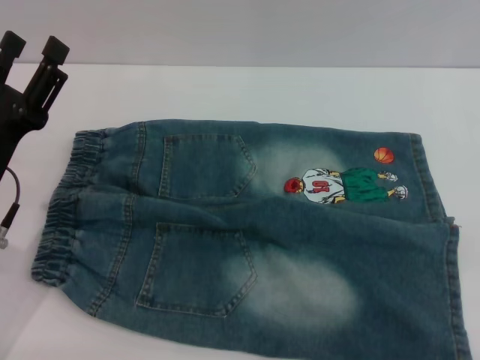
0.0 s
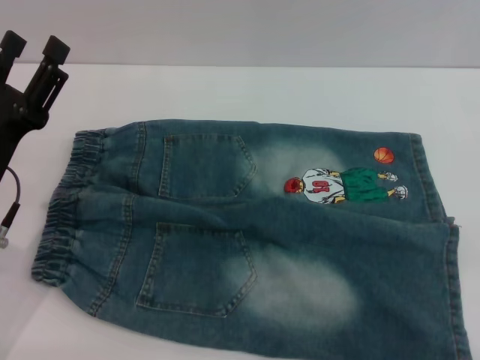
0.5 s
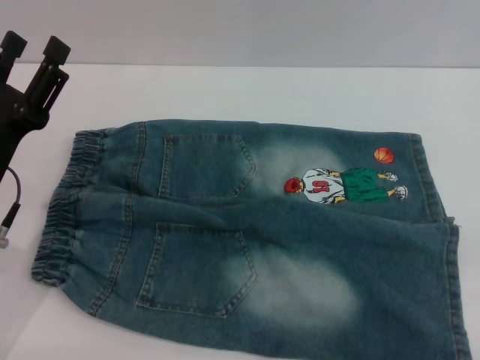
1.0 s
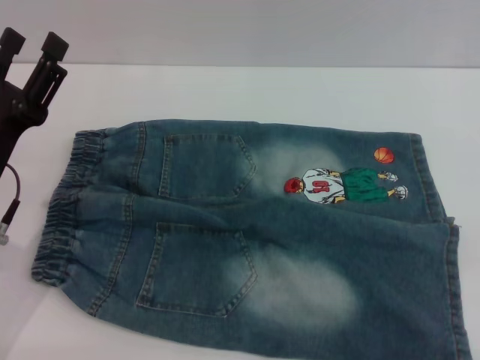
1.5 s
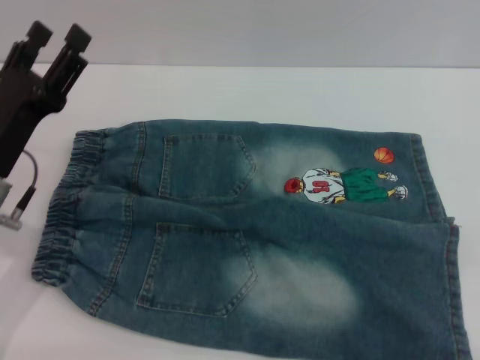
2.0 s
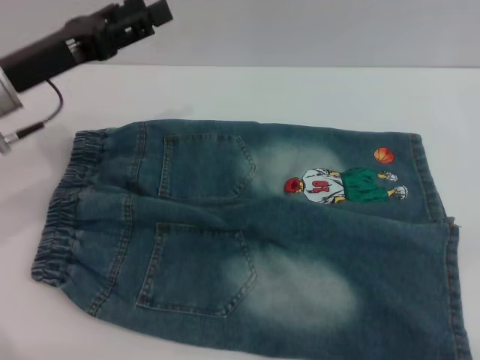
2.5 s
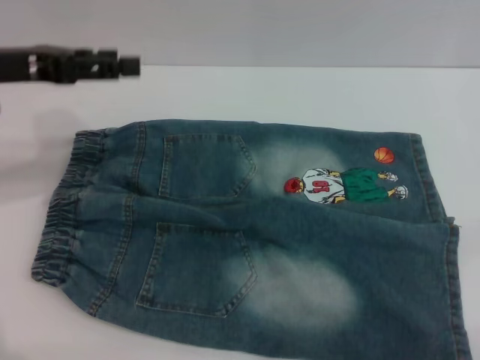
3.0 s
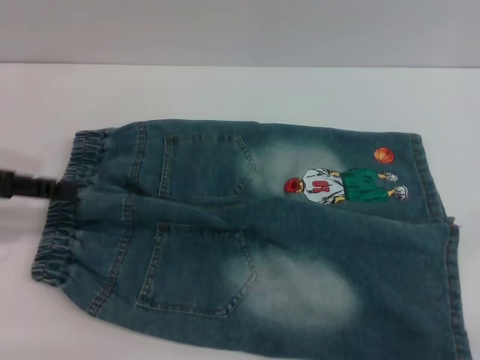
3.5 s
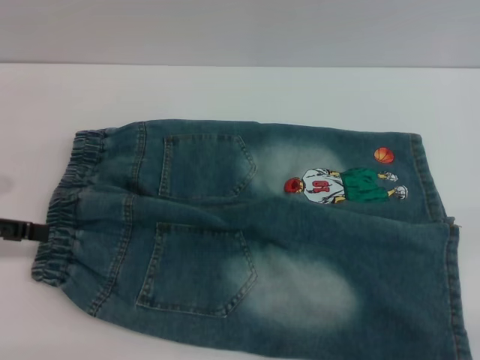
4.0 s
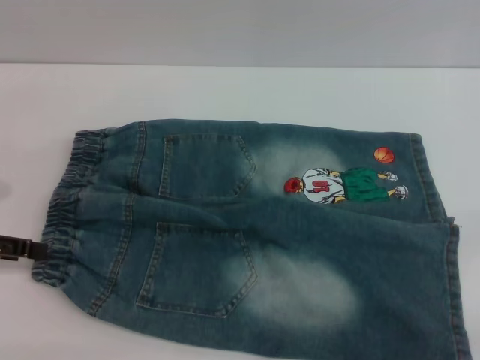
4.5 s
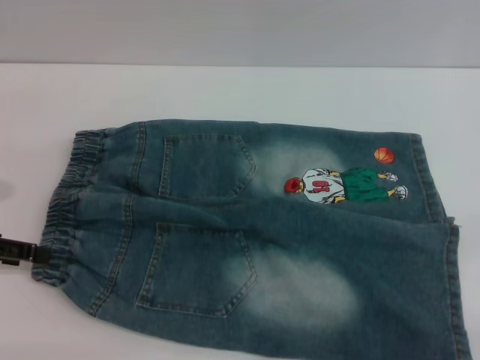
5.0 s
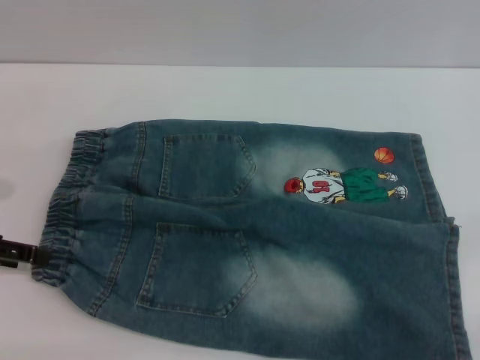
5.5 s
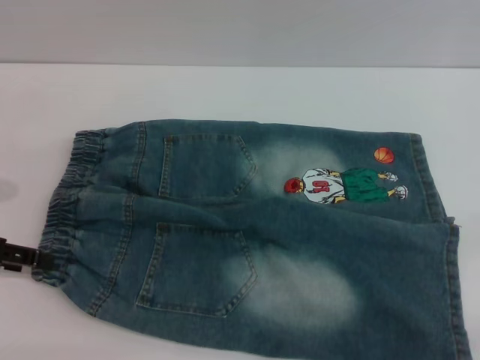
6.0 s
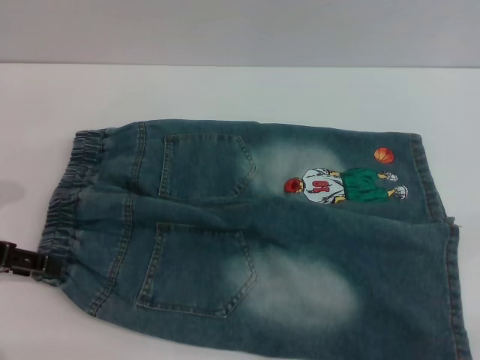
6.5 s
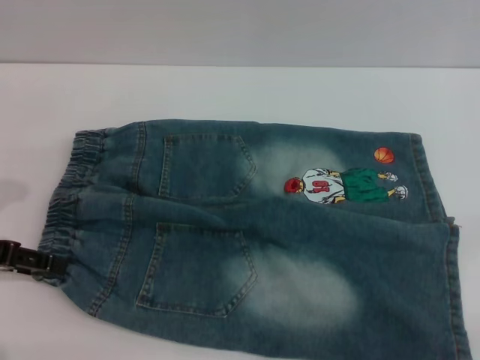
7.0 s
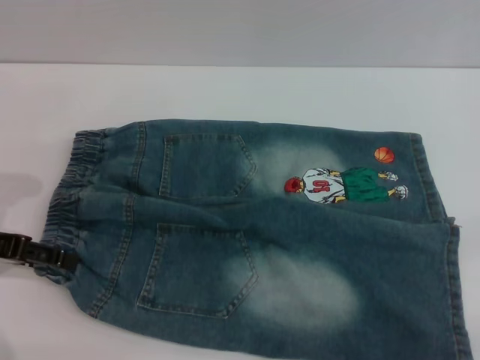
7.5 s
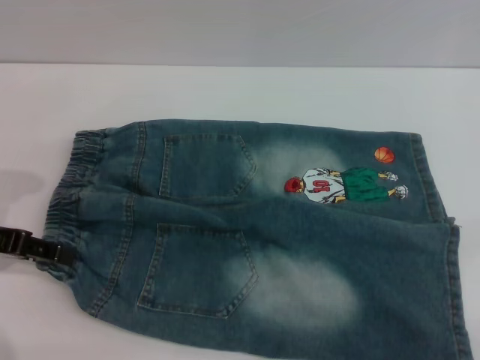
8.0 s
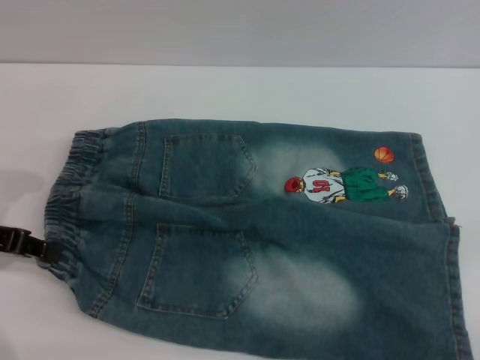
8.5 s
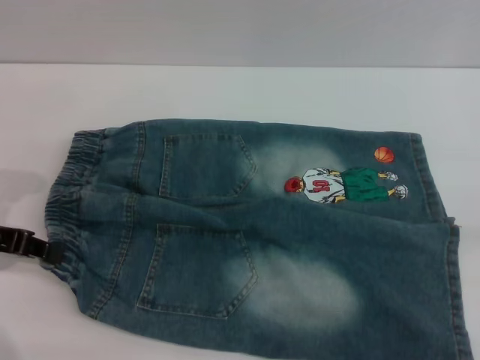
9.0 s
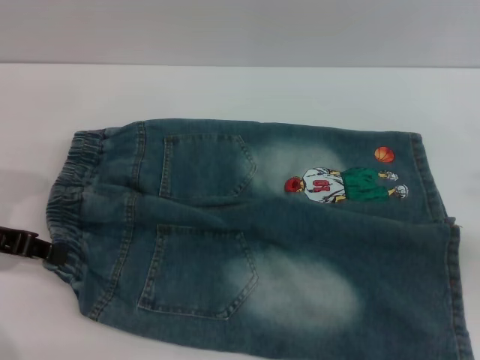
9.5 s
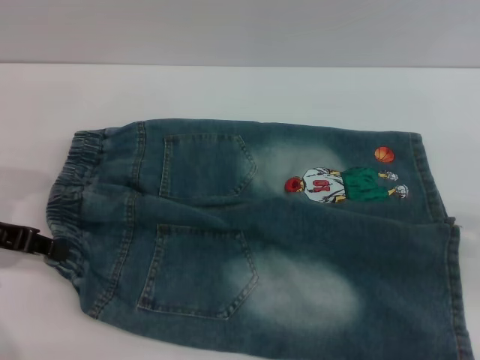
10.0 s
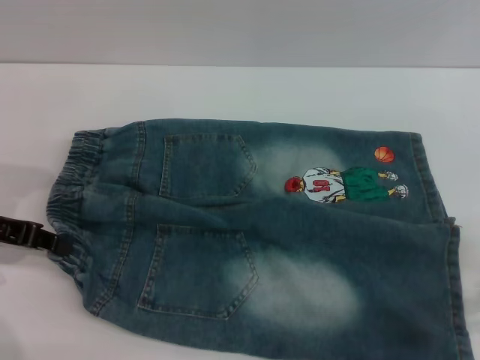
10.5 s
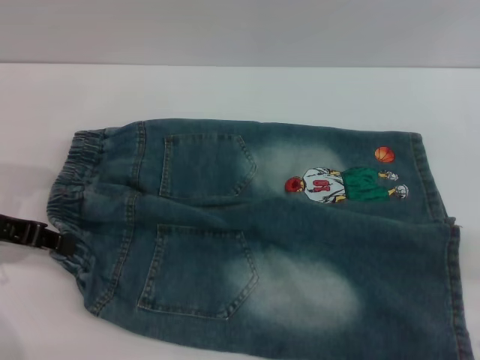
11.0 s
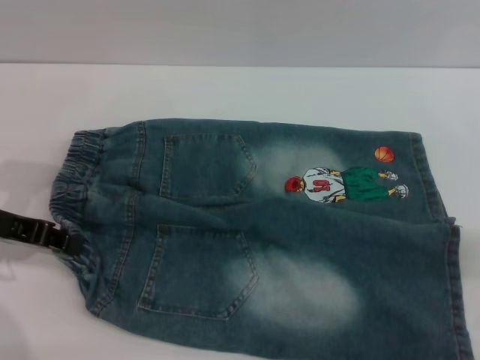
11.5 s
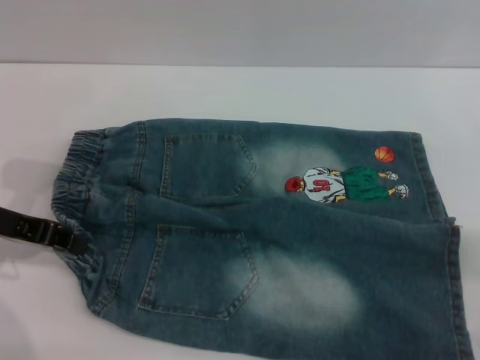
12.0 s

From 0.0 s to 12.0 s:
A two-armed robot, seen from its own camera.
From 0.0 s to 2.0 s: The grippers stay close to where they were, moving slightly.
From 2.0 s to 4.0 s: The left gripper heads to the left and upward, covering about 15 cm.
From 4.0 s to 8.0 s: The grippers make only small movements.
From 8.0 s to 10.0 s: The right gripper moves upward and forward, approximately 15 cm, while the left gripper closes.

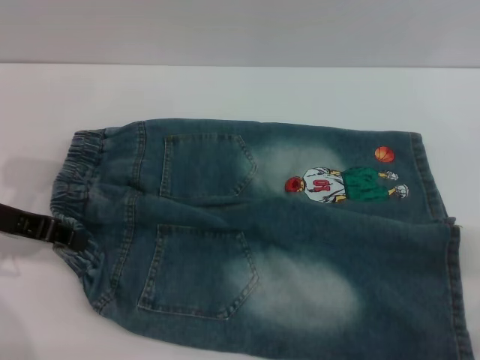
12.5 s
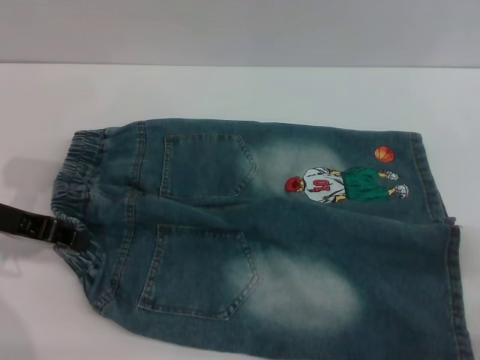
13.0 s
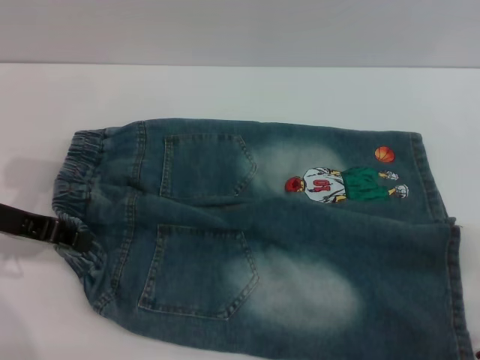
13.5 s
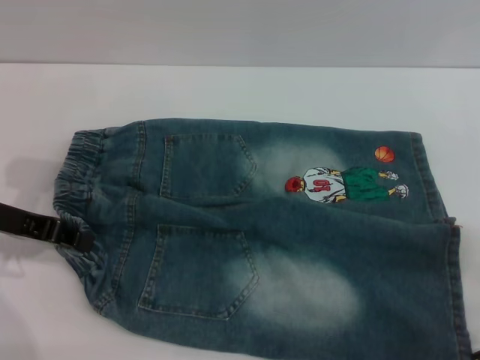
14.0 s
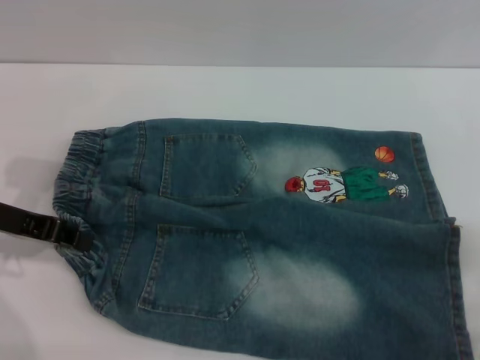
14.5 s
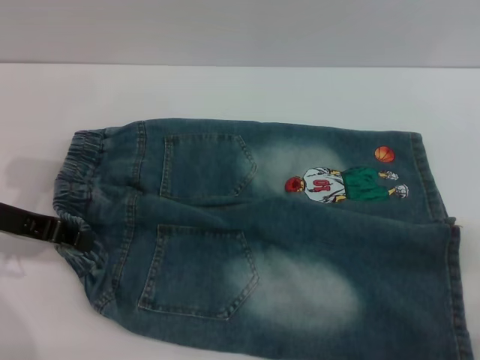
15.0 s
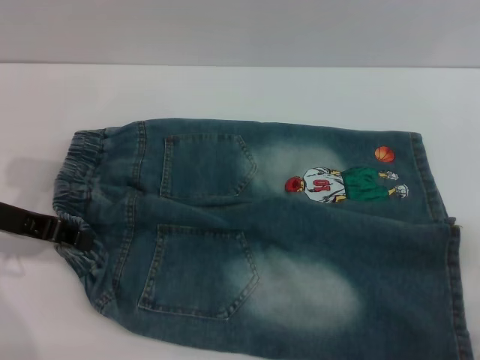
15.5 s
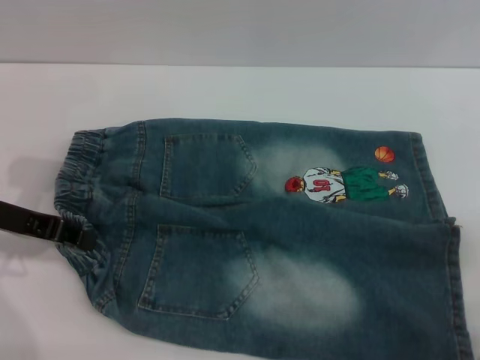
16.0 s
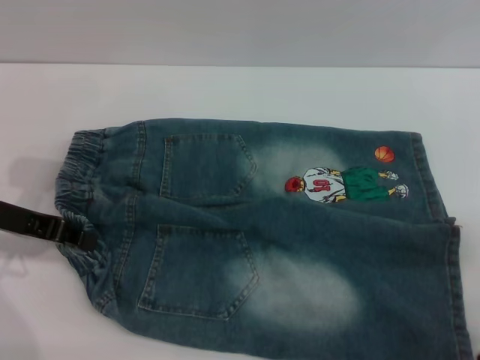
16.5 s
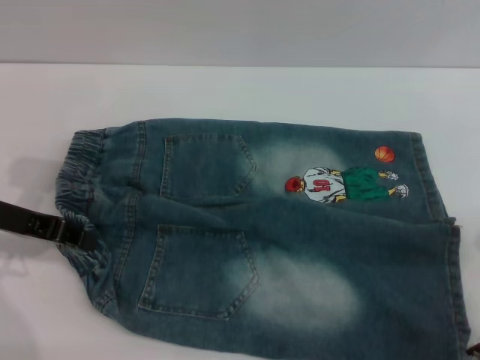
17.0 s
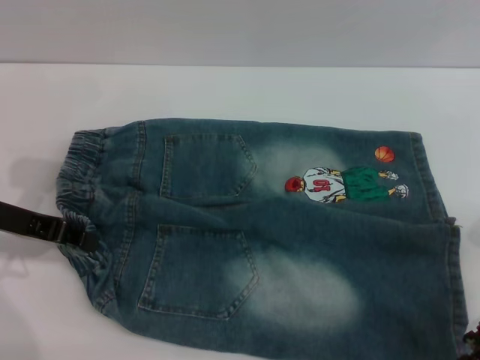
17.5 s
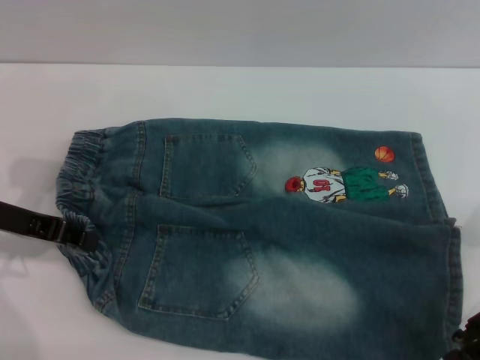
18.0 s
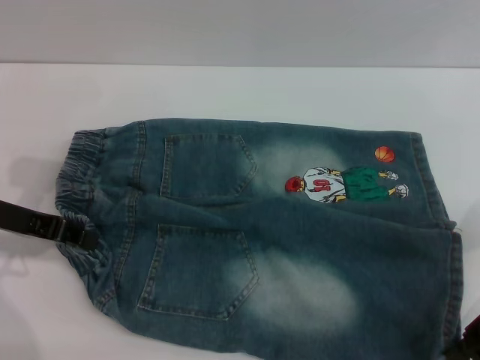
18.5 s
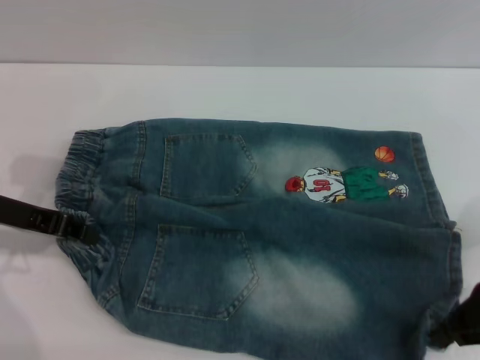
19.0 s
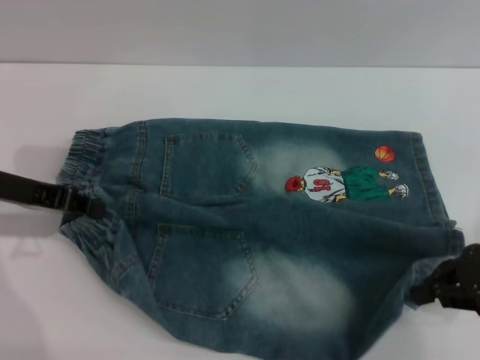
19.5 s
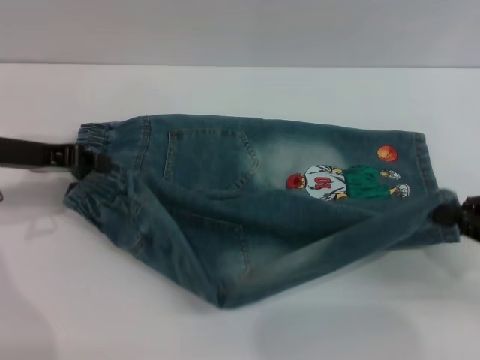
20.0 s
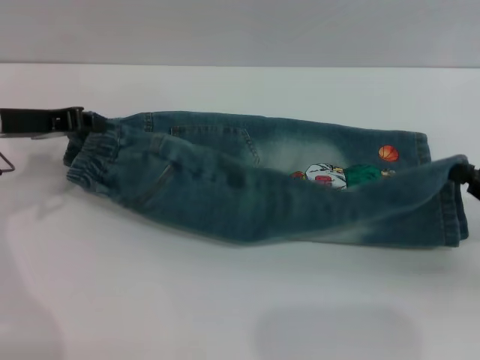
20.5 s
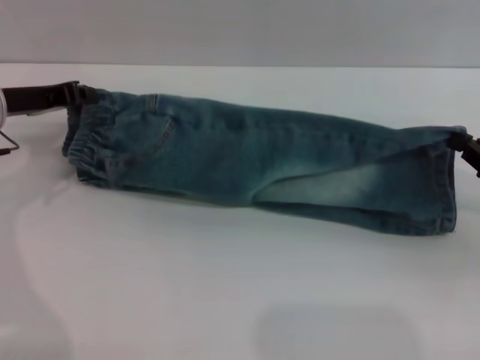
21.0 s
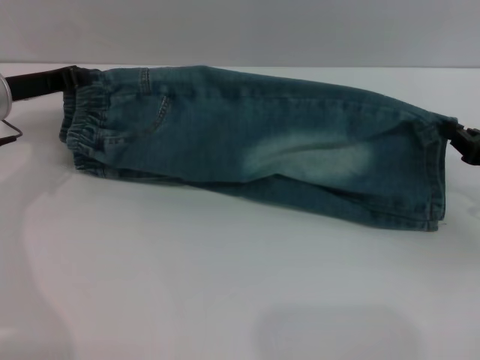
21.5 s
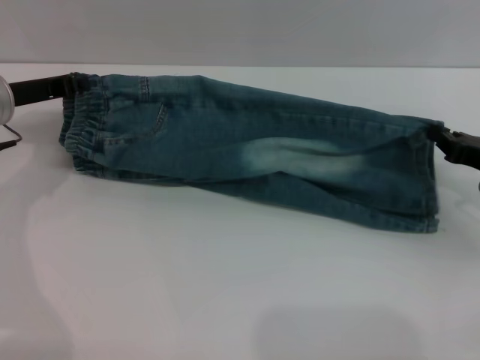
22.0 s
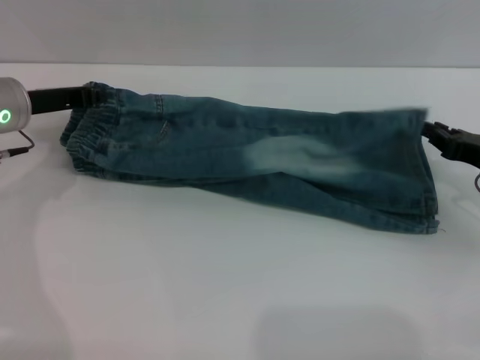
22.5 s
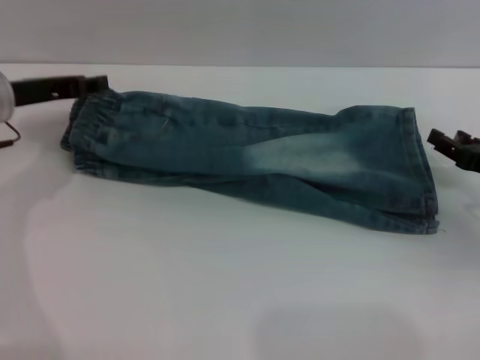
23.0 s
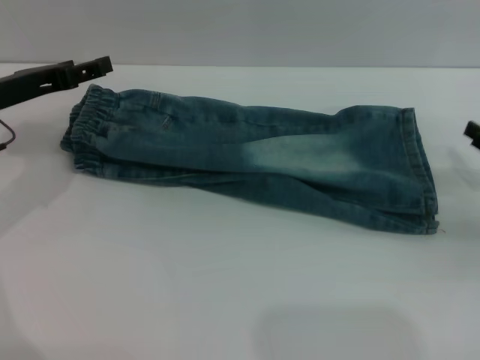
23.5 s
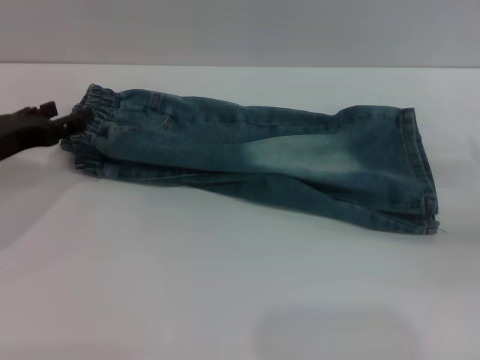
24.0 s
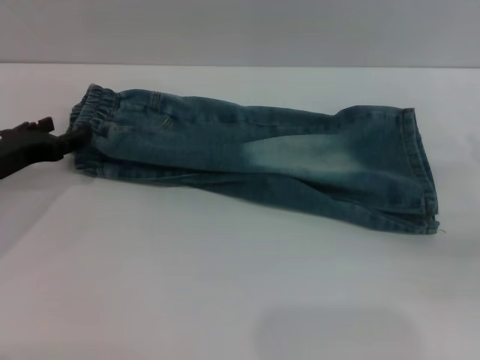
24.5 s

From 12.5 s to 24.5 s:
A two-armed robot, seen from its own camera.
From 16.5 s to 18.5 s: The right gripper closes up.
From 18.5 s to 20.5 s: The left gripper heads forward, covering about 5 cm, while the right gripper changes place by approximately 5 cm.
From 20.5 s to 22.5 s: The right gripper shifts about 5 cm forward.
From 22.5 s to 24.5 s: The left gripper goes approximately 10 cm backward and downward, and opens up. Meanwhile the right gripper heads to the right and backward, covering roughly 10 cm, and opens up.

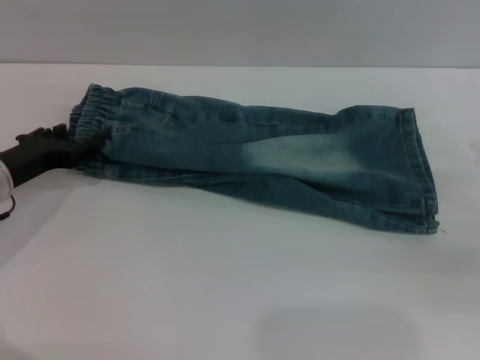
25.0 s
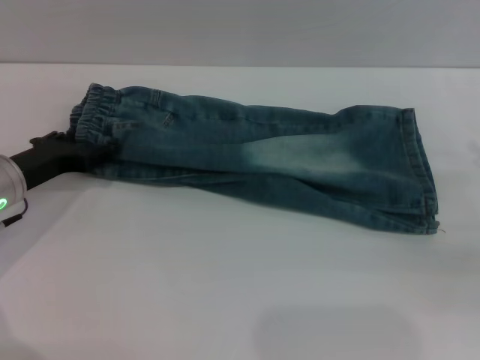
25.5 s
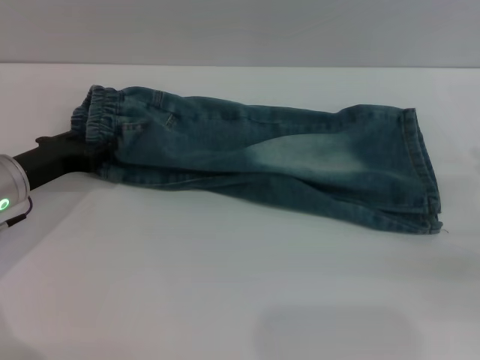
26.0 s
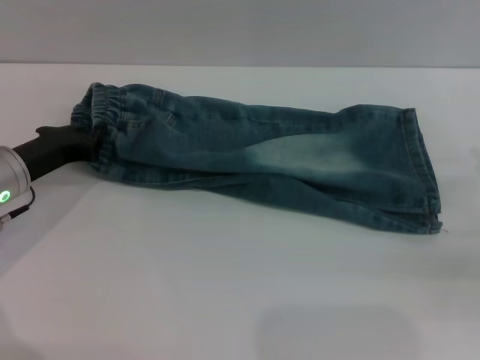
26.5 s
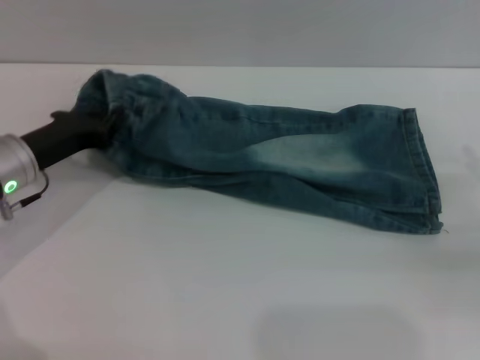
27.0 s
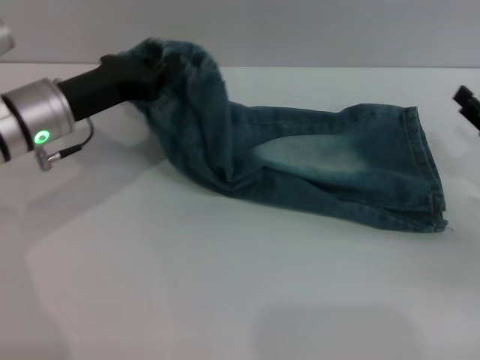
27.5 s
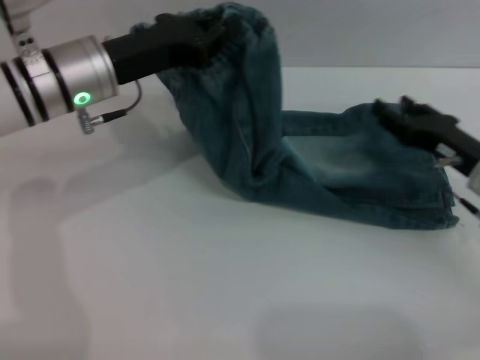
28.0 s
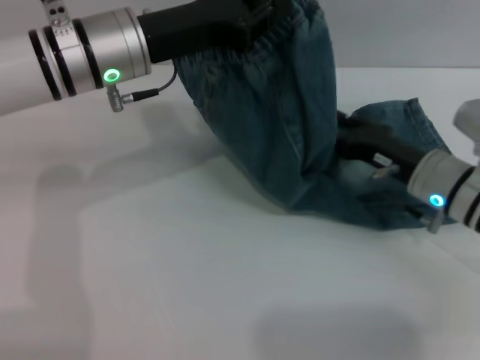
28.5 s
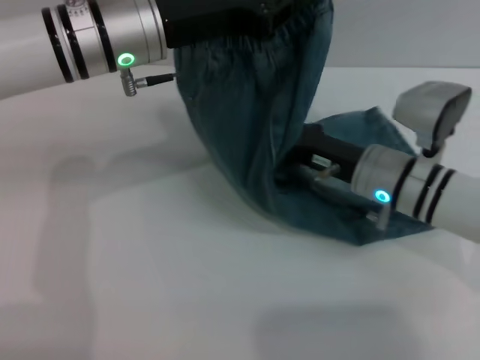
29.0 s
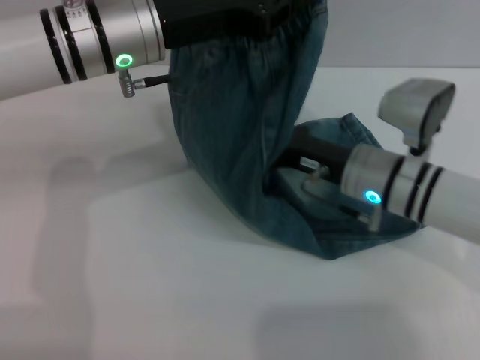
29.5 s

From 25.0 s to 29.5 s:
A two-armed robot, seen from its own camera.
From 25.0 s to 27.0 s: The left gripper closes its fingers.
From 27.0 s to 29.5 s: The left gripper is displaced to the right and upward by roughly 20 cm. Meanwhile the right gripper moves to the left, some 25 cm.
